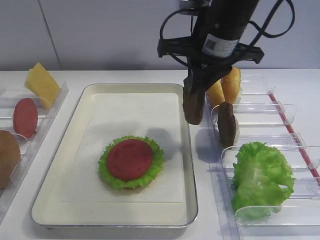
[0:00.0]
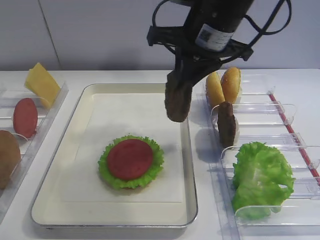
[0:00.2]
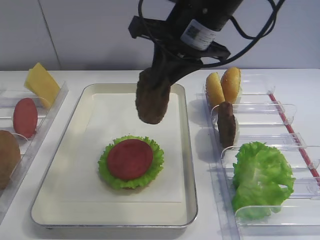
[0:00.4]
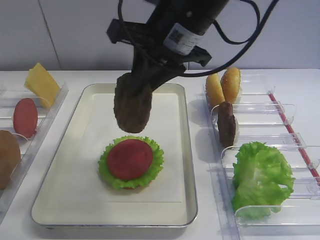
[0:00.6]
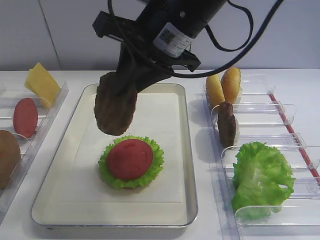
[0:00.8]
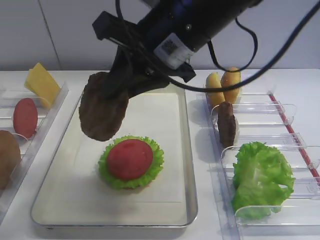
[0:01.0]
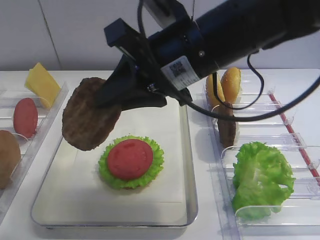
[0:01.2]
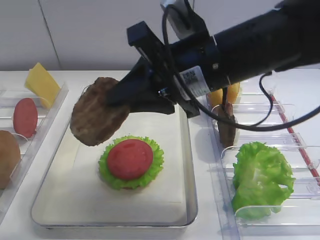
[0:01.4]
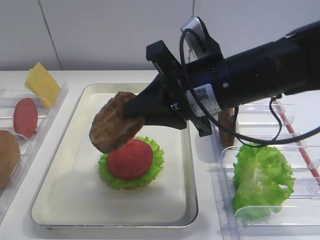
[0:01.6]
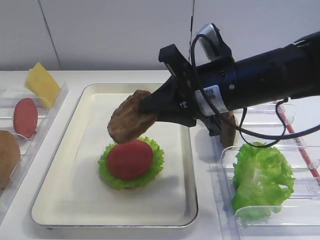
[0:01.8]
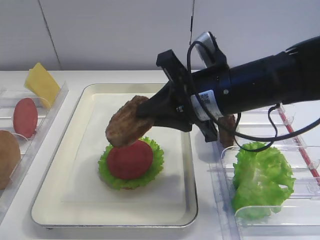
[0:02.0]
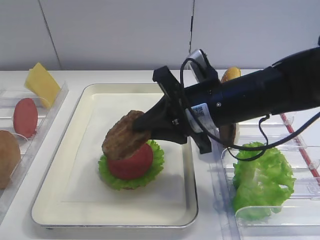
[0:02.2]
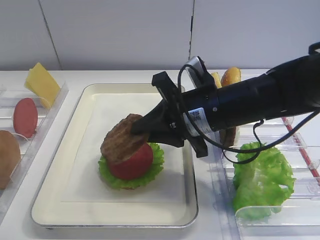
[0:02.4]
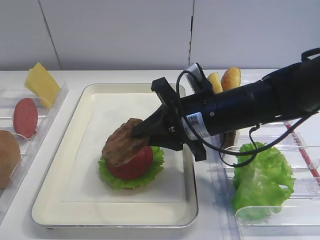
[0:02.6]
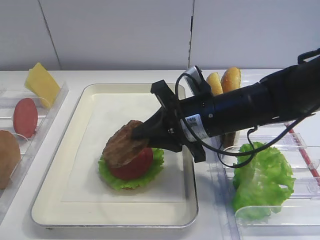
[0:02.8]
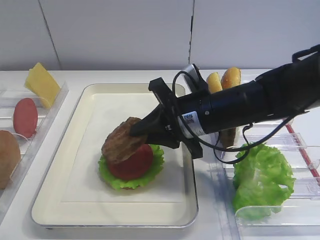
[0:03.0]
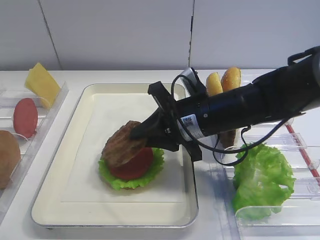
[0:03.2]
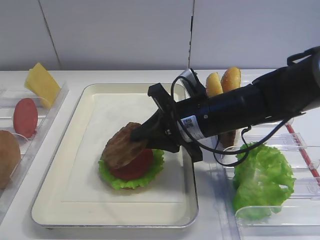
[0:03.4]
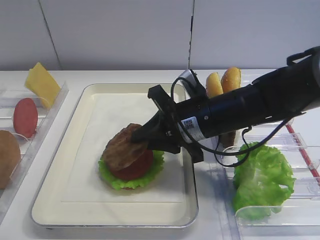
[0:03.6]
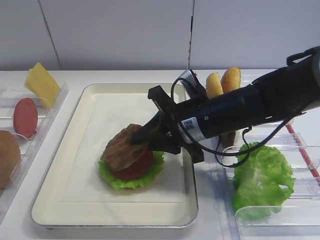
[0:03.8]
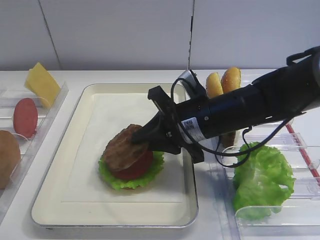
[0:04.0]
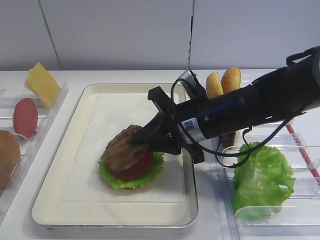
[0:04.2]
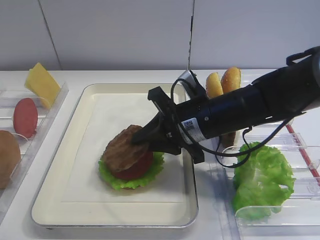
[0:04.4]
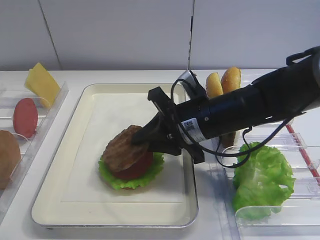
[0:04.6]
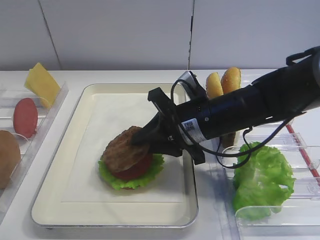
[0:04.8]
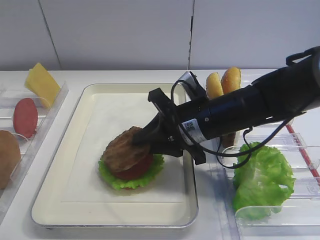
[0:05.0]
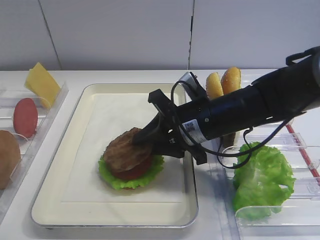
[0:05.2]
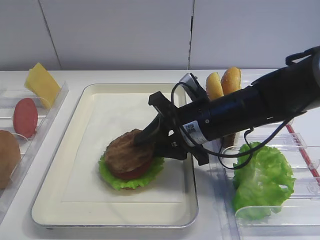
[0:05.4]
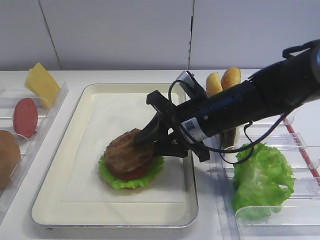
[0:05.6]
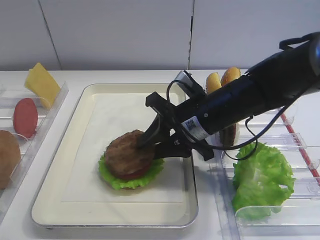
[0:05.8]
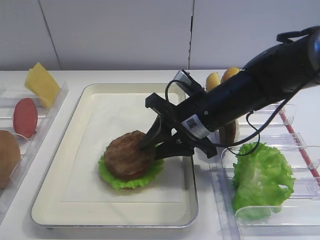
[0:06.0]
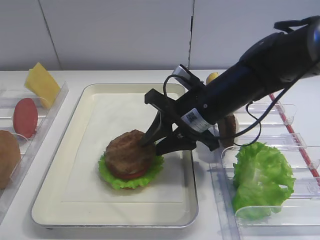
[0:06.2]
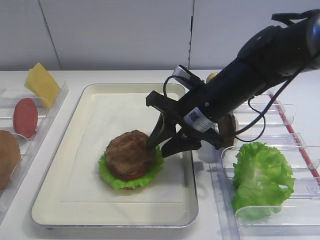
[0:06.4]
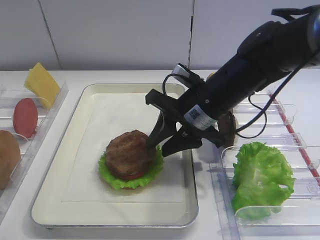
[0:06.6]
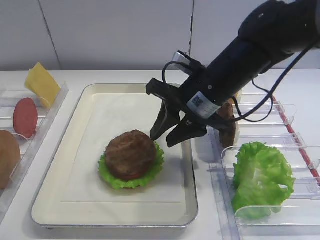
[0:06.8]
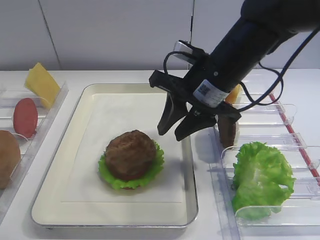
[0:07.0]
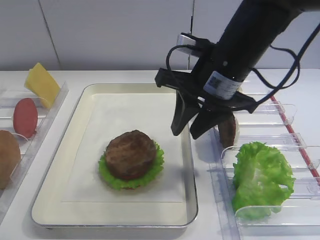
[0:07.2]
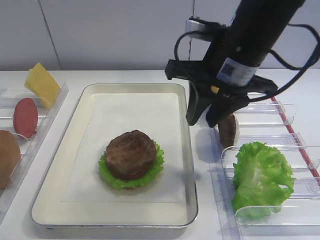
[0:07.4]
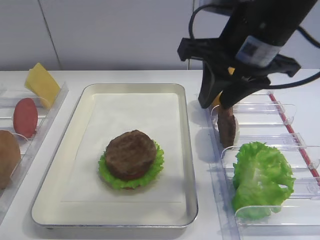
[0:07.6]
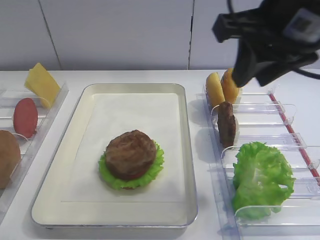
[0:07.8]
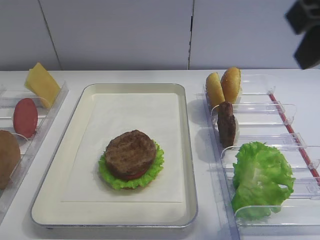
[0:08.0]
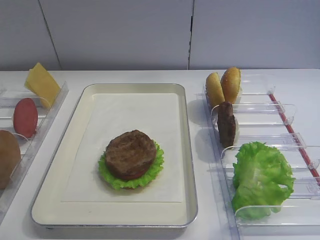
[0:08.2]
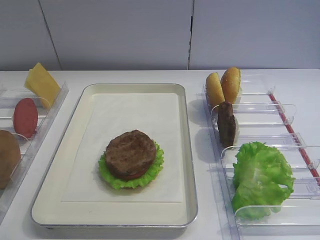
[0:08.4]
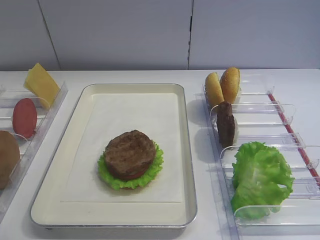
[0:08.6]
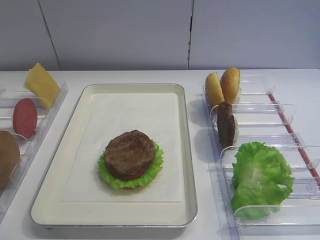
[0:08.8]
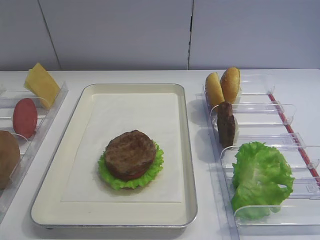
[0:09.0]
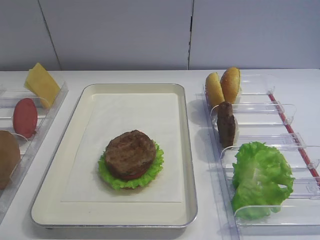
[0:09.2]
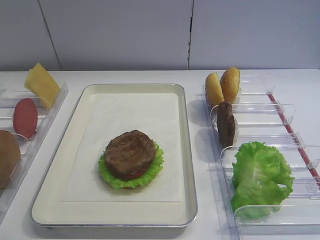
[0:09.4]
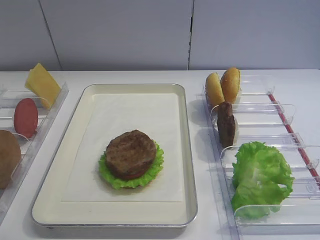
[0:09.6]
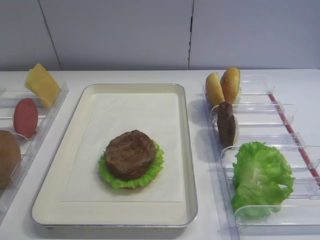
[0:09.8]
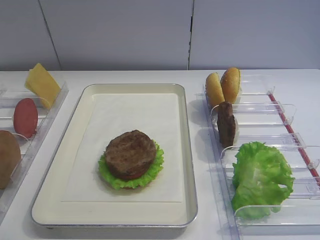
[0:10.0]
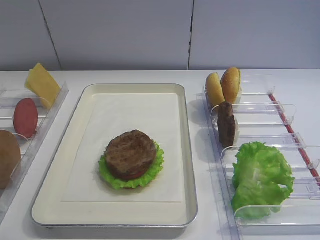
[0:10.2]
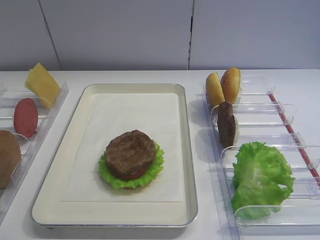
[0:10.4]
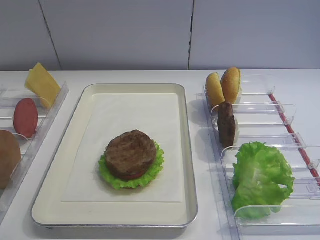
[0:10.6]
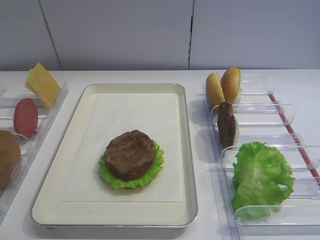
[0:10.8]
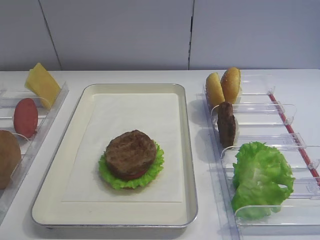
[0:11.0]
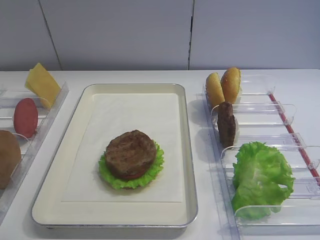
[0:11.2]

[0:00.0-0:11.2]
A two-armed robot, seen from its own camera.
Step, 0:00.0 to 0:06.8: Place the cutlet on the tomato slice with the right gripper.
0:00.0 to 0:01.6: The right gripper is displaced backward by approximately 10 cm.
0:01.6 to 0:03.2: The right gripper heads downward, covering approximately 10 cm.
0:03.2 to 0:04.8: Both grippers stay about where they are.
0:04.8 to 0:06.4: There are only small adjustments of the grippers.
0:06.4 to 0:08.0: The right gripper goes roughly 25 cm upward, backward and to the right.
0:08.0 to 0:09.6: The right gripper goes about 25 cm backward, downward and to the right.
0:09.6 to 0:11.2: Both grippers stay put.
